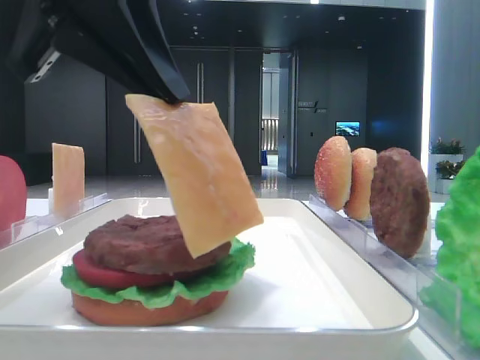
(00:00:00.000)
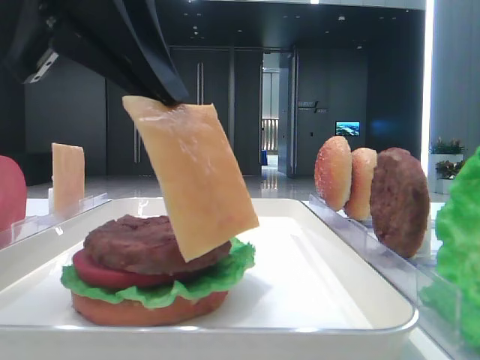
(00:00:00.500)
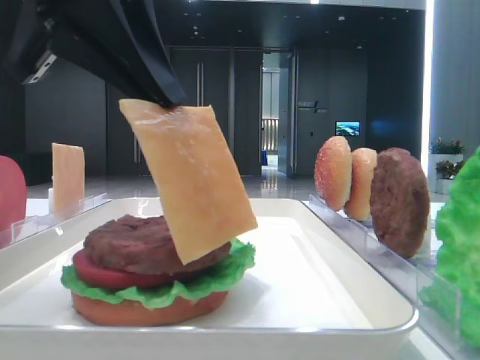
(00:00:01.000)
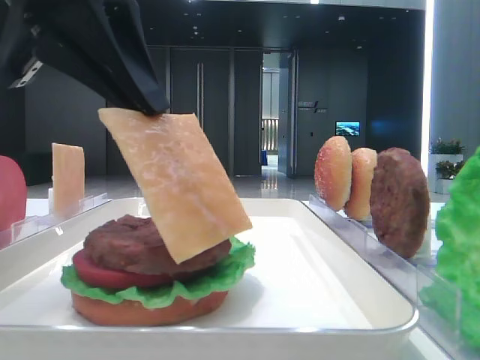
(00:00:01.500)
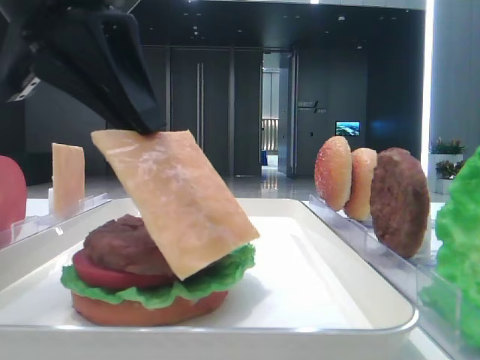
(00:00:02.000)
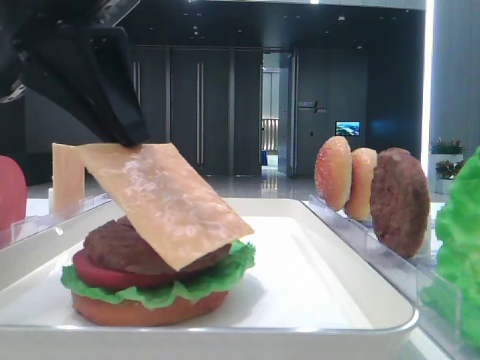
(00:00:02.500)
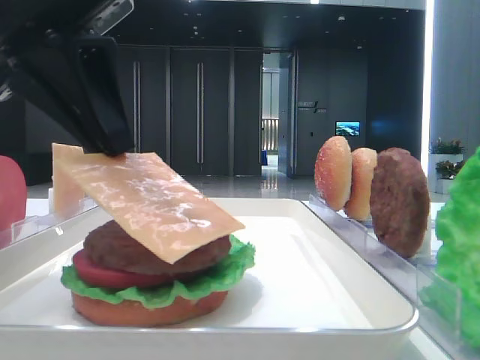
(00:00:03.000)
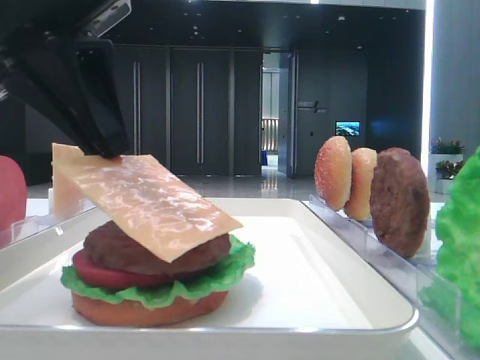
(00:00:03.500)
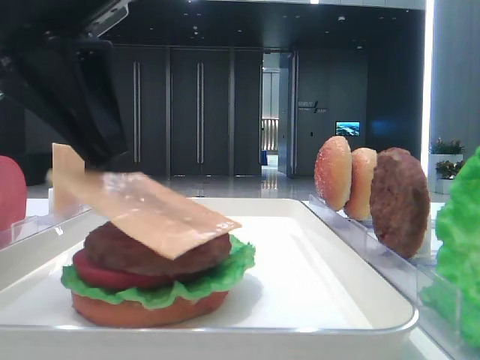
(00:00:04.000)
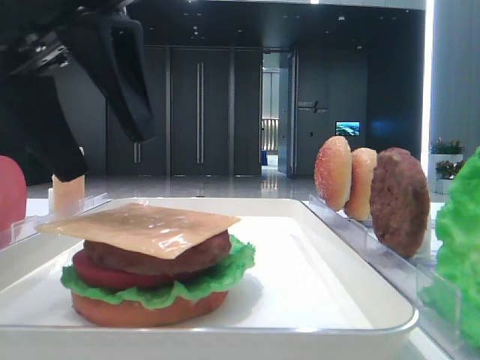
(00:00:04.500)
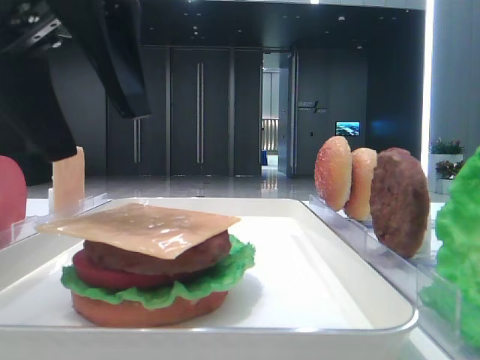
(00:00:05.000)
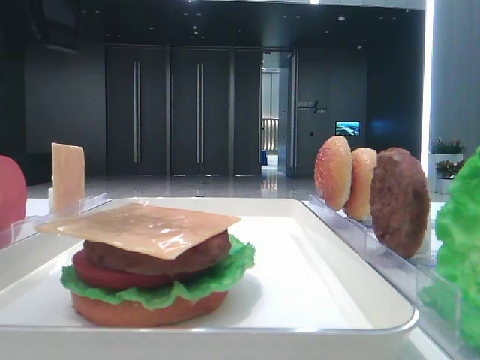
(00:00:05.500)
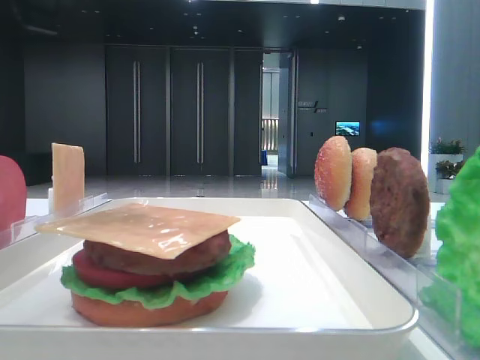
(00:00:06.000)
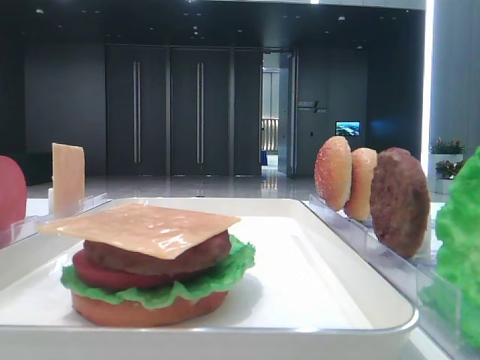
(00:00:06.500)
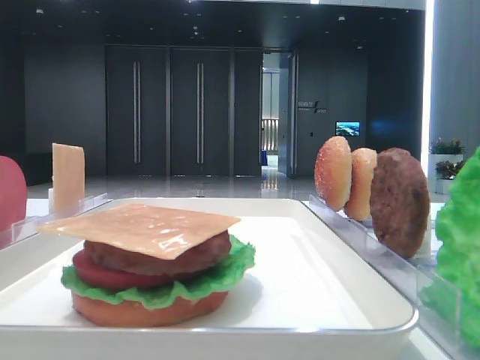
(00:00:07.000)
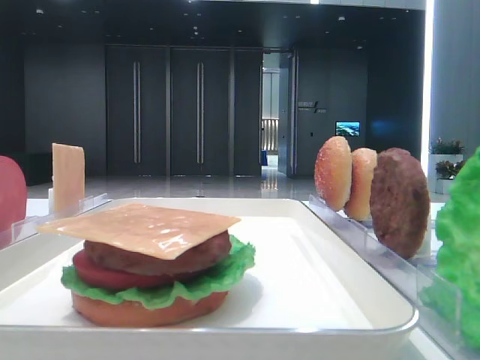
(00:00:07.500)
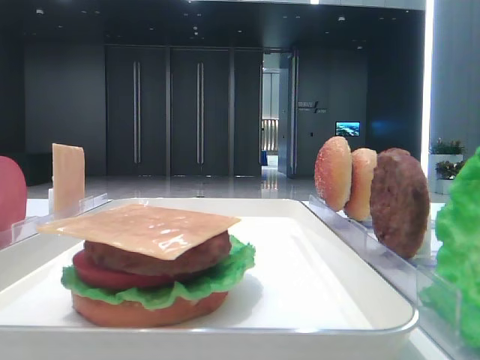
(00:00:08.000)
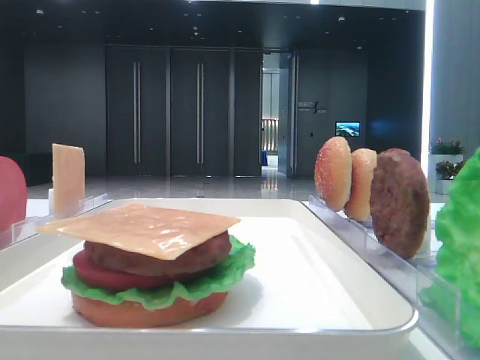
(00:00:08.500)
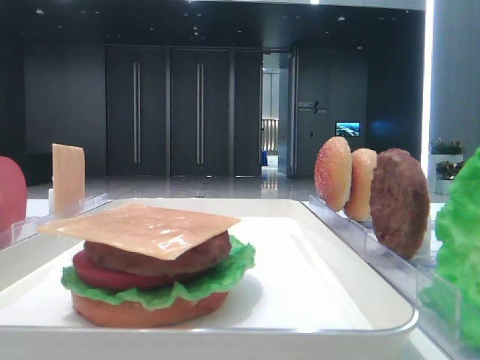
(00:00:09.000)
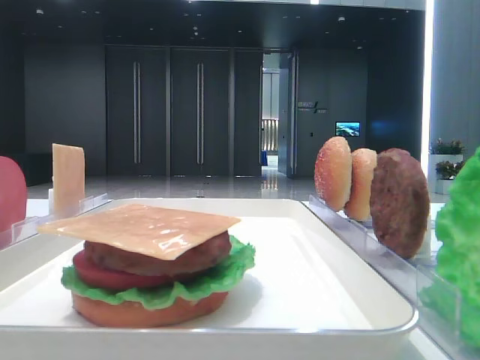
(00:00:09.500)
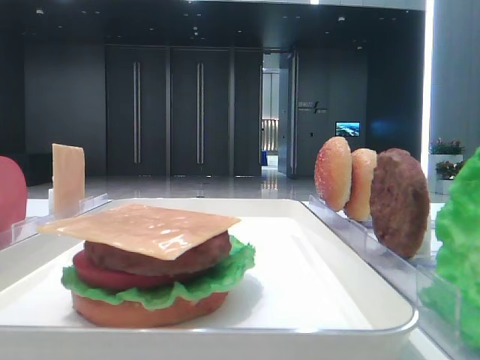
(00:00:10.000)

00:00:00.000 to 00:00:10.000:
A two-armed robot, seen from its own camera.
Step, 00:00:00.000 to 00:00:04.000: Place the cheese slice on the patty with the left hand.
00:00:00.000 to 00:00:04.000: The grippers move only a little.
00:00:04.000 to 00:00:06.000: The left gripper goes roughly 10 cm upward, and opens its fingers.
00:00:06.000 to 00:00:08.000: The left gripper is displaced backward and to the left by some 25 cm.

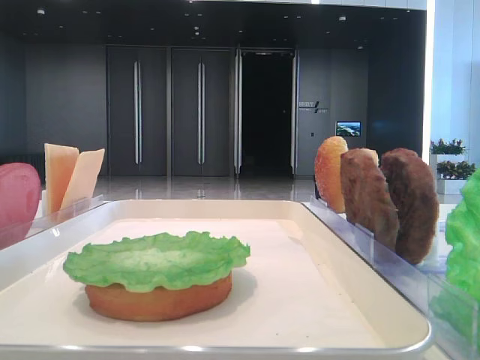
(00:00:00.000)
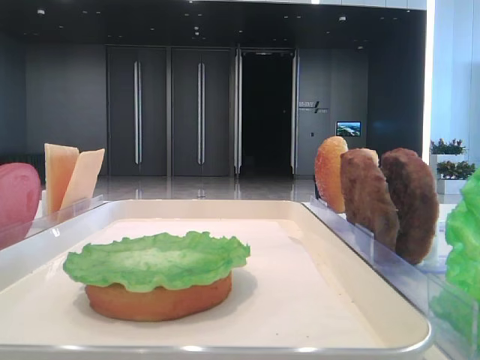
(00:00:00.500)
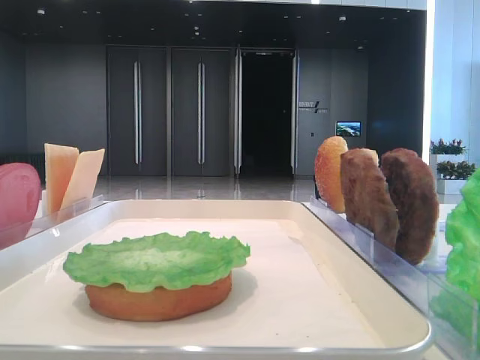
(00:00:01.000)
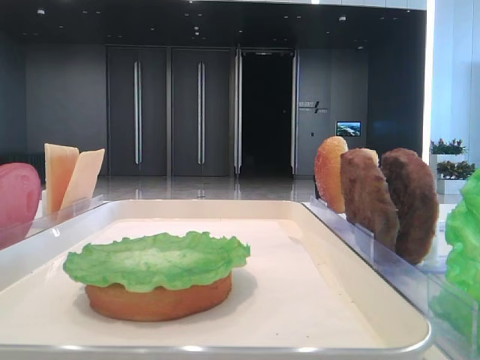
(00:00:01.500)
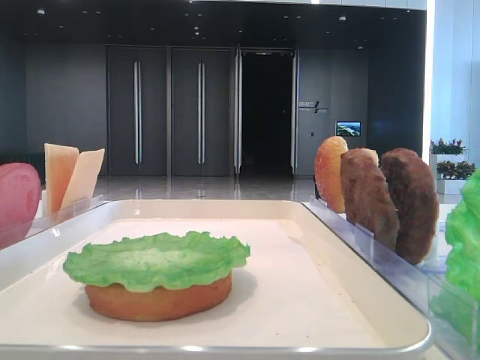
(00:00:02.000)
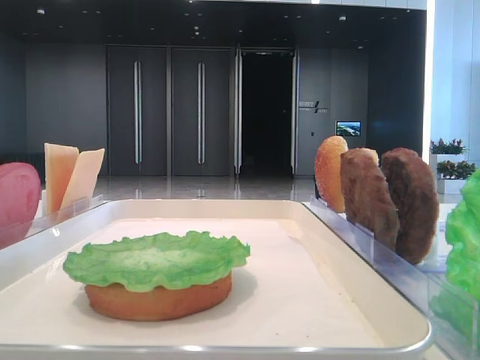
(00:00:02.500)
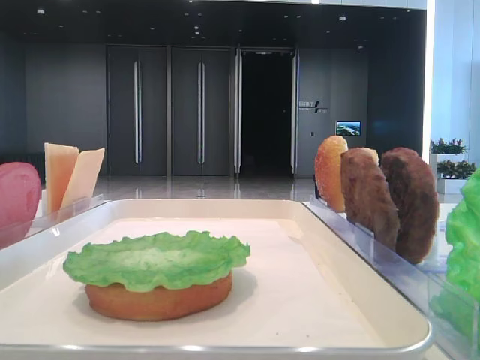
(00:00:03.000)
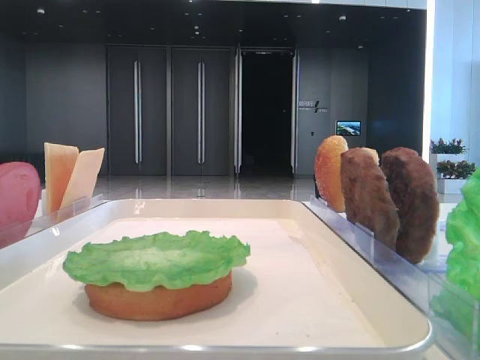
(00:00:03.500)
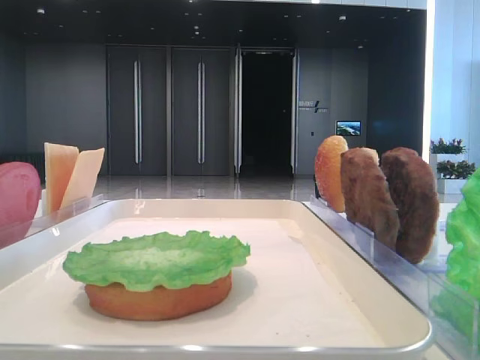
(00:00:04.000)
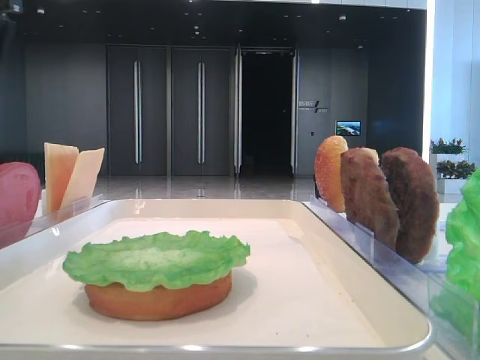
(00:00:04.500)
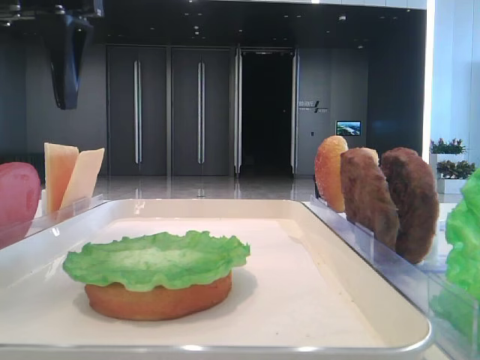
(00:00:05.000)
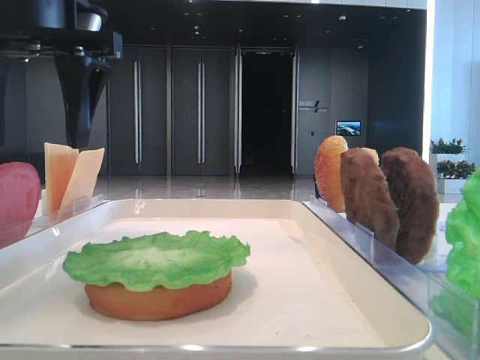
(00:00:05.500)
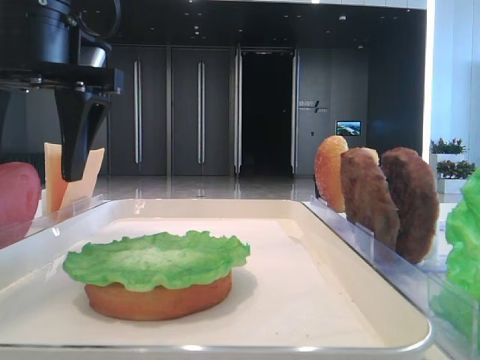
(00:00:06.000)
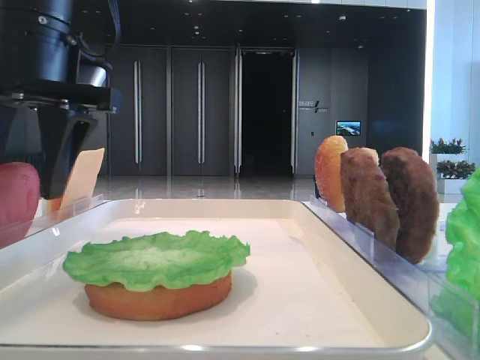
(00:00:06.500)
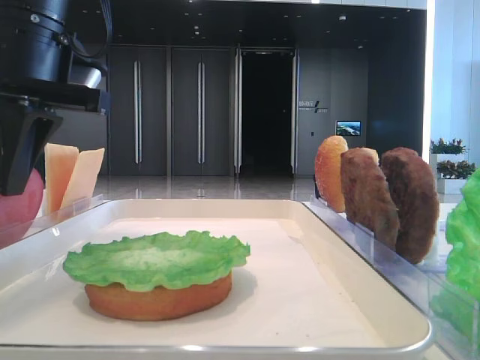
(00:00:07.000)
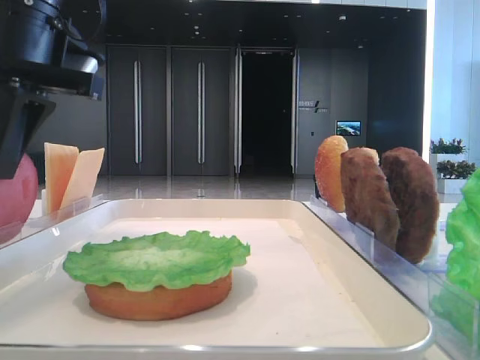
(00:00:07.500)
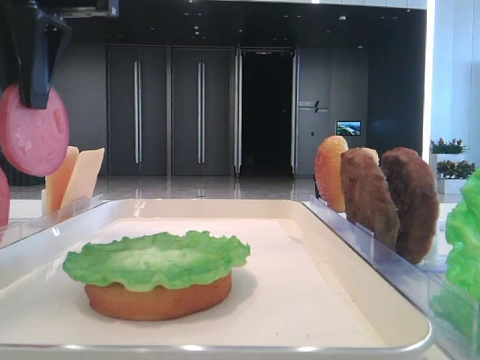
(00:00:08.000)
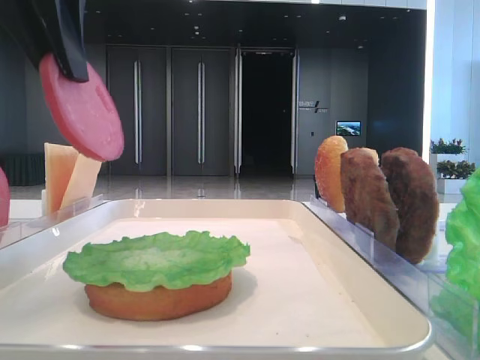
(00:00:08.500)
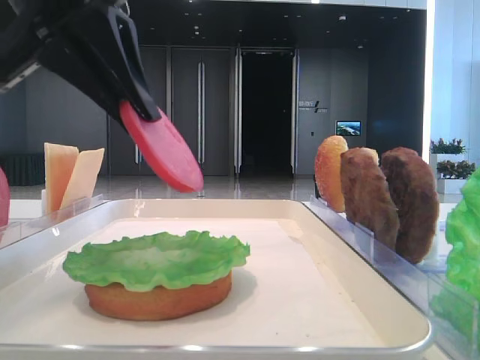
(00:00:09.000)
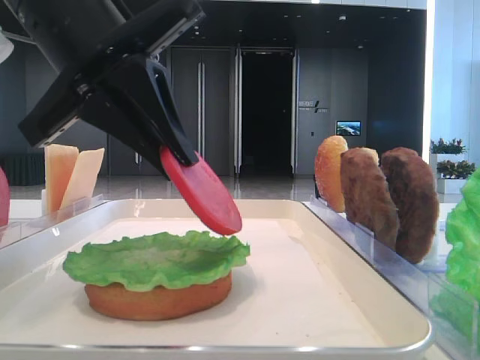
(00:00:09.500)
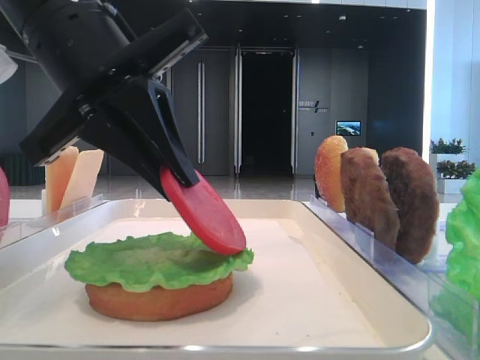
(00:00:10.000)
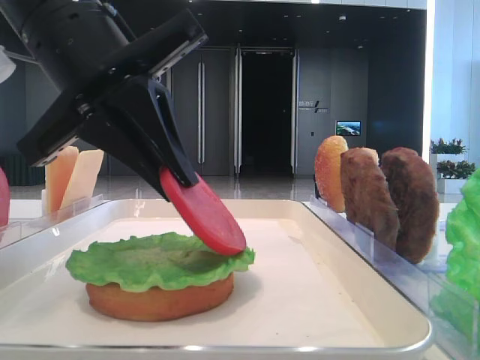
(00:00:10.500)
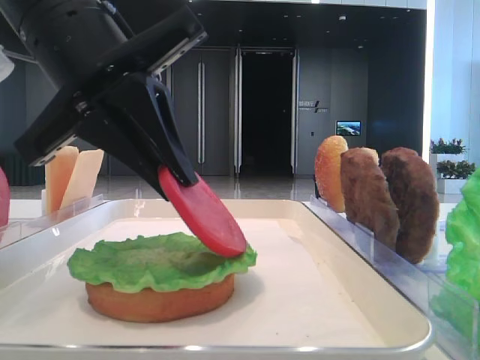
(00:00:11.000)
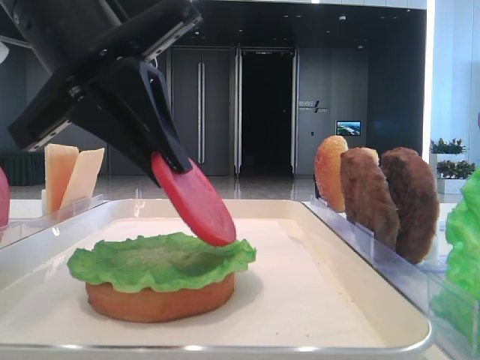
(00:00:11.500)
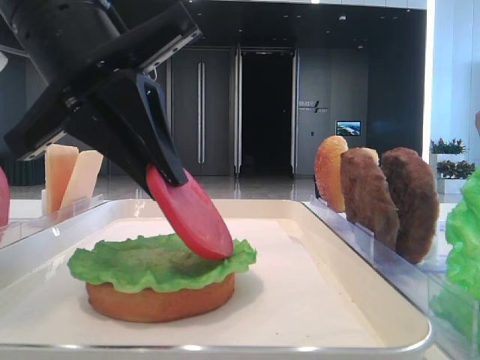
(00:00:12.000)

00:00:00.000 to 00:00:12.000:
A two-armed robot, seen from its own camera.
Step, 00:00:00.000 to 00:00:06.500: Pick up the tomato slice with the left hand.
00:00:04.000 to 00:00:06.000: The left gripper shifts approximately 20 cm to the right.
00:00:06.000 to 00:00:08.000: The left gripper travels upward by about 5 cm, and closes up.
00:00:08.000 to 00:00:10.000: The left gripper goes about 10 cm downward and to the right.
00:00:10.000 to 00:00:12.000: Both grippers stay about where they are.

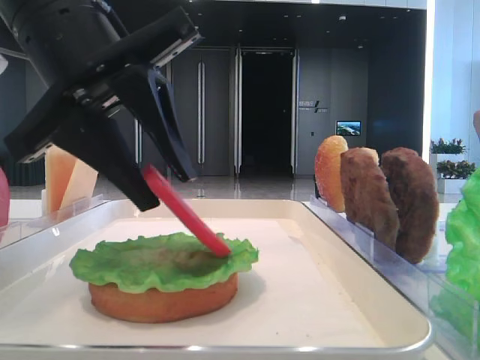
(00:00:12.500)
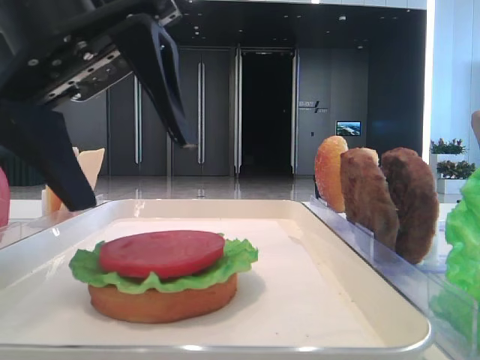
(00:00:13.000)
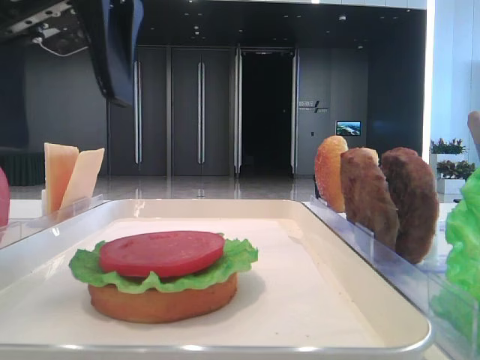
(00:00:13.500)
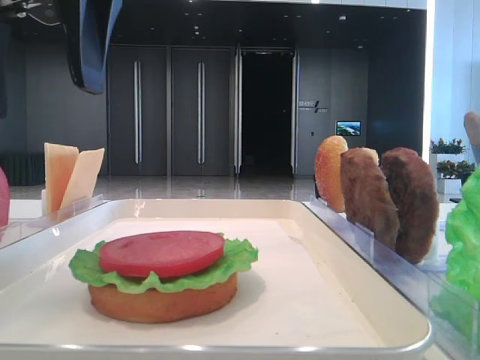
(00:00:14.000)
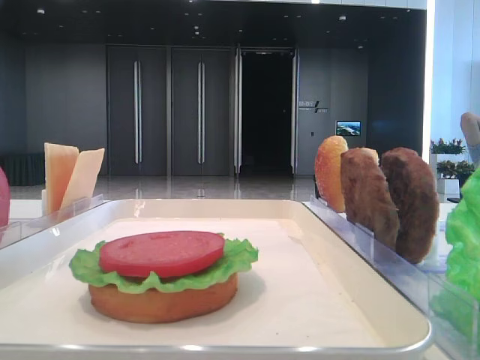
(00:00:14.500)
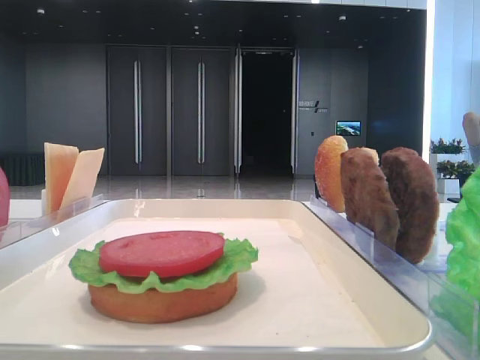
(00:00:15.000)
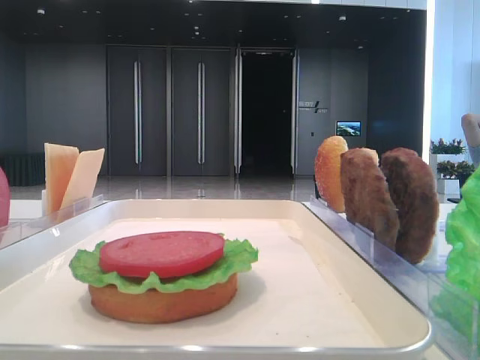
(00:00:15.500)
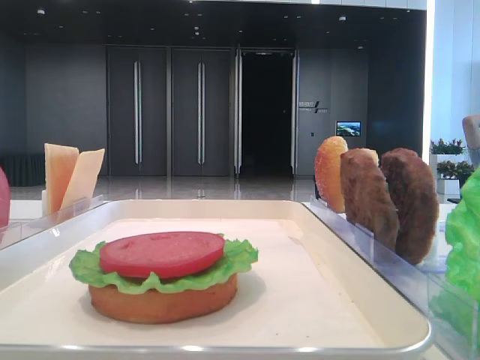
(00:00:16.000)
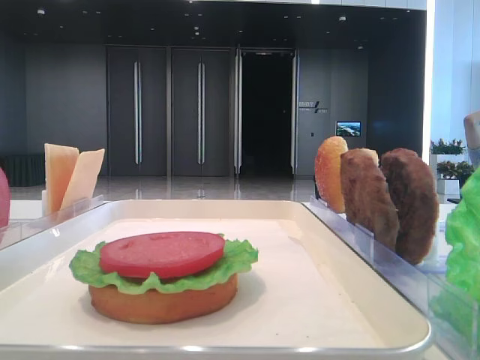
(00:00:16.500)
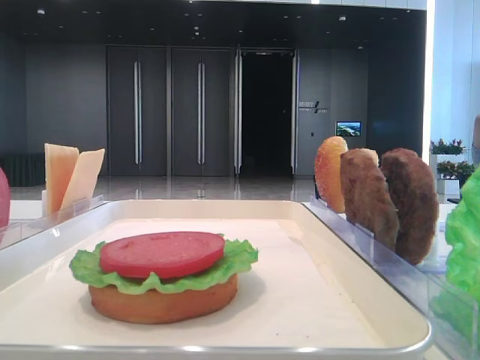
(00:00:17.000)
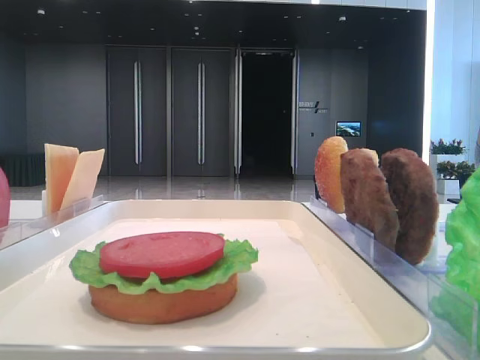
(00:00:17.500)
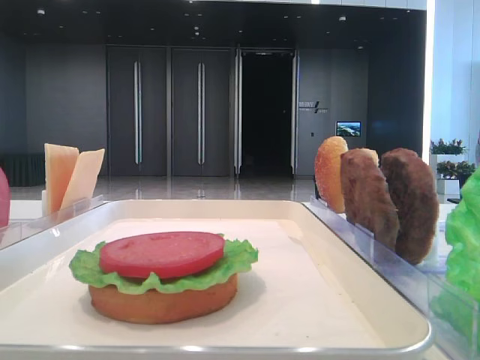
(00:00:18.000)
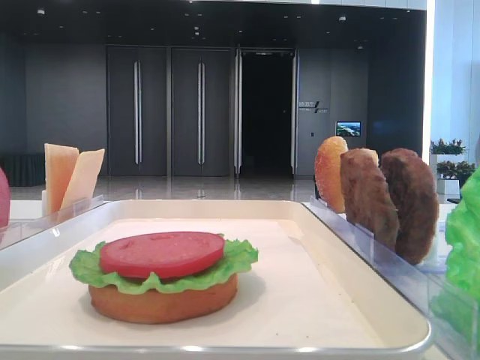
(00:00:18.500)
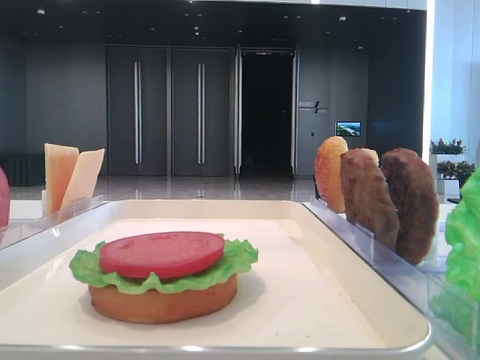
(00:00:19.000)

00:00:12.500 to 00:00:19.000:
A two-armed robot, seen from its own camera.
00:00:12.500 to 00:00:14.500: The left gripper moves to the left and upward, roughly 15 cm, and opens up.
00:00:17.000 to 00:00:19.000: Both grippers stay put.
